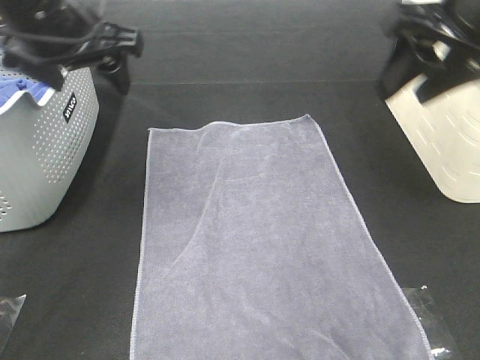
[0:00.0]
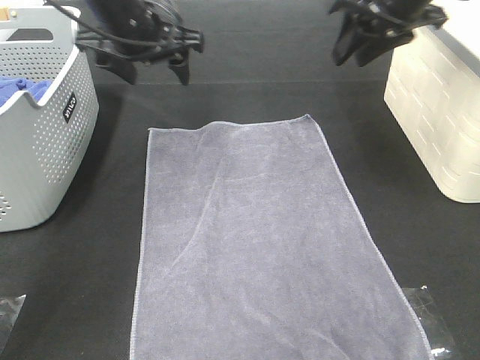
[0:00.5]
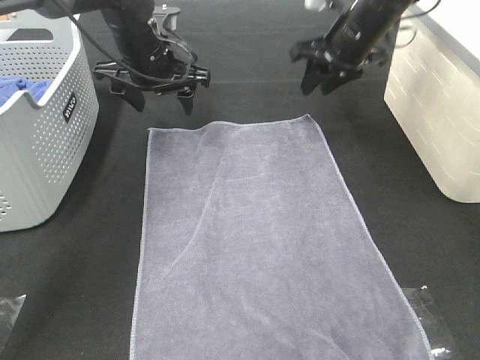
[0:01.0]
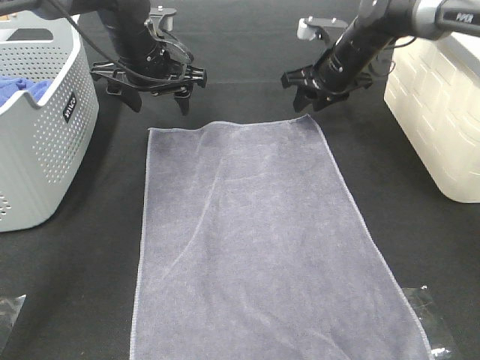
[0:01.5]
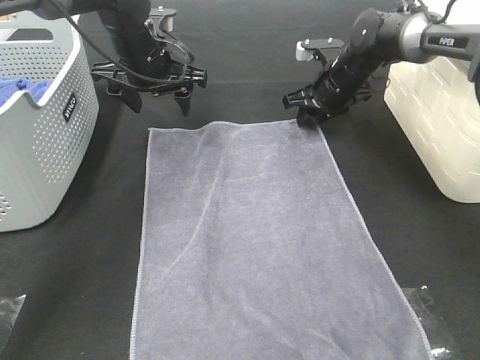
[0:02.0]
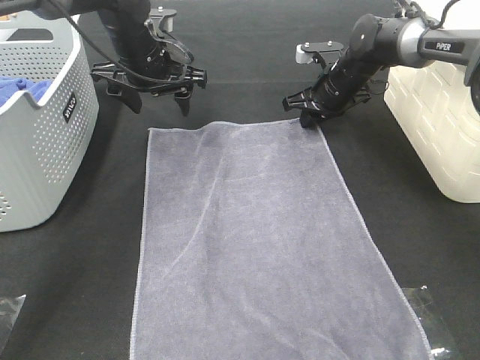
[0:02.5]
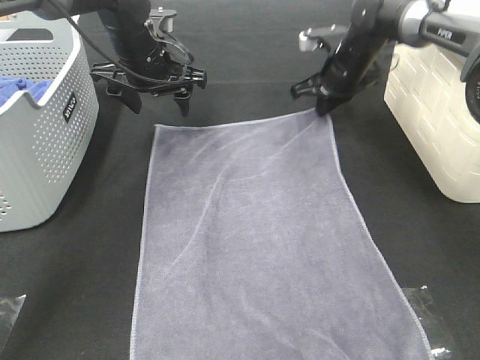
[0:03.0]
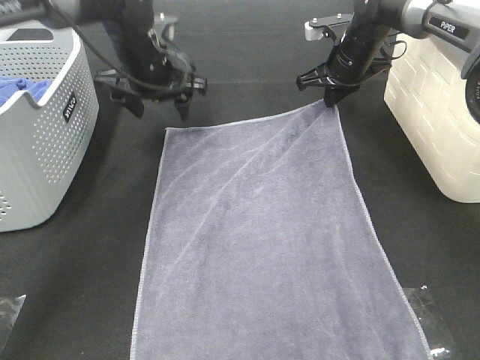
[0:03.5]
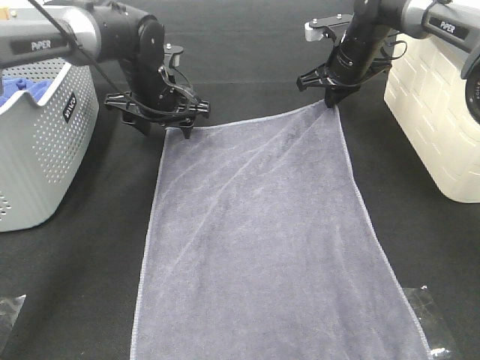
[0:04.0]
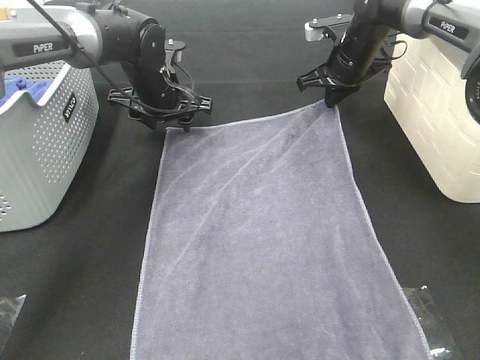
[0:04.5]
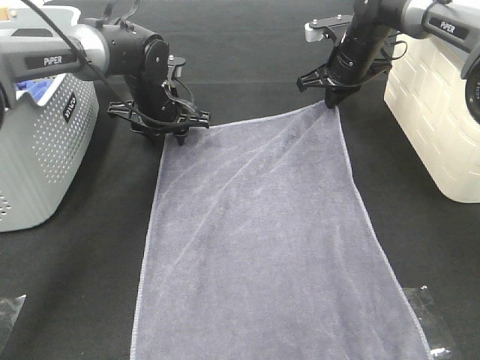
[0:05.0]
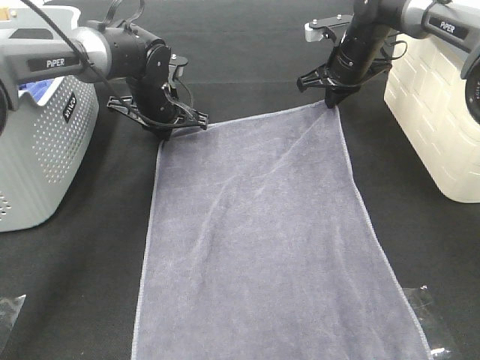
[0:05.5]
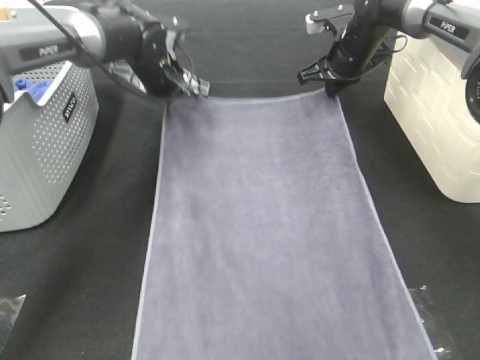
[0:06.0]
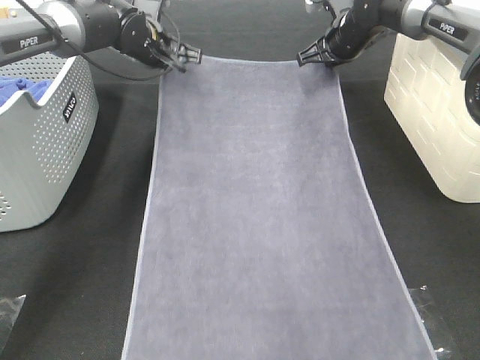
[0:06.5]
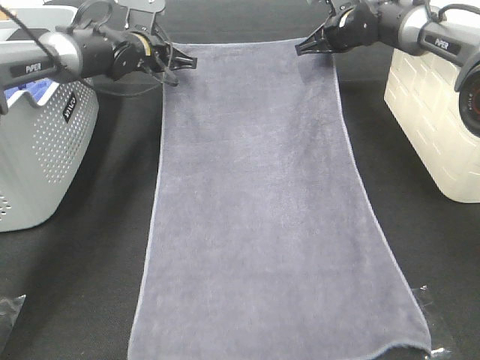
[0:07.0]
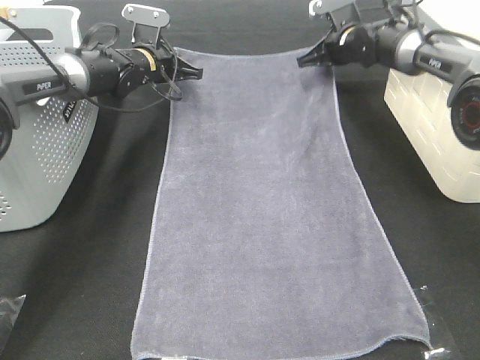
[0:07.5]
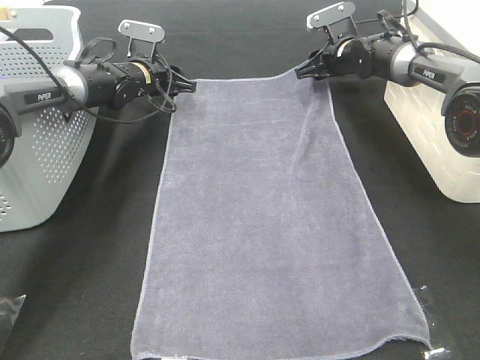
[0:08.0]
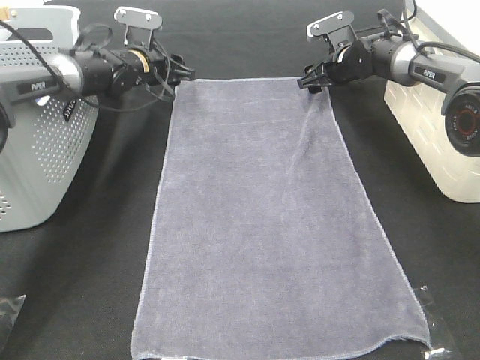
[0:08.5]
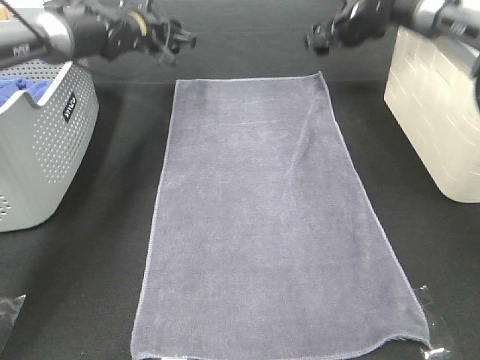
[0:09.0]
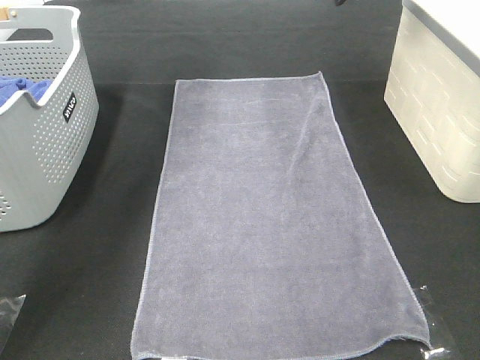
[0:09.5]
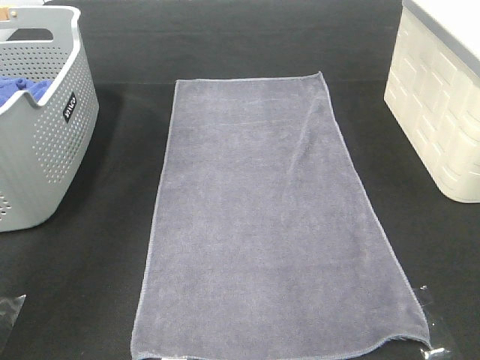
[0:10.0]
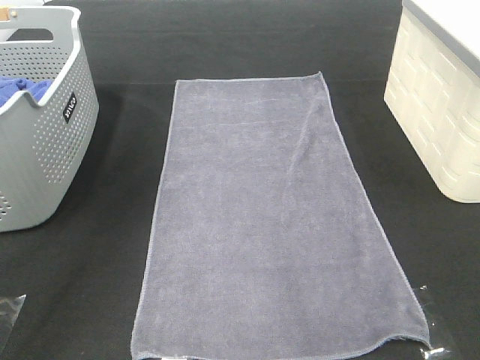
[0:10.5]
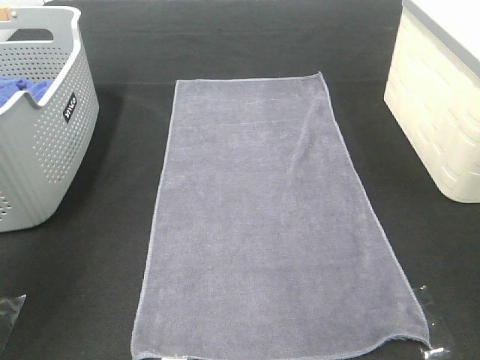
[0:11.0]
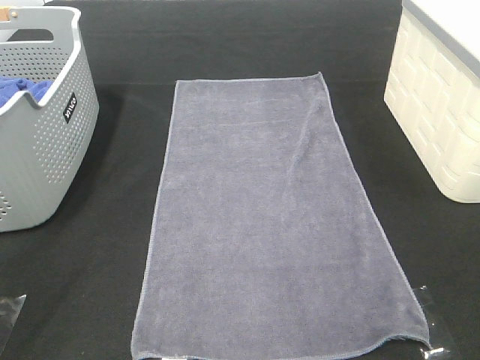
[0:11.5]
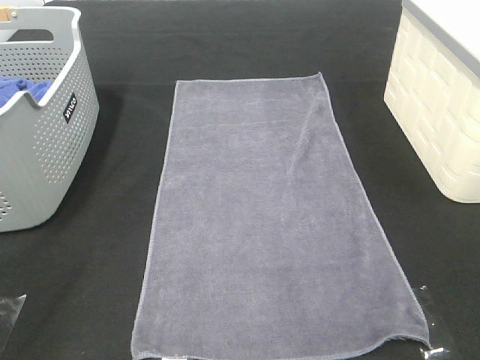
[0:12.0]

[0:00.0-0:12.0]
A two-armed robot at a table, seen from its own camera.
Task of the whole recording: Remove the towel and place it.
Step, 0:00.0 to 0:02.0: Left hand:adjust the gray towel.
Step, 0:00.0 to 0:02.0: Right hand:adjust the gray towel.
0:00.0 to 0:02.0: The right gripper goes some 30 cm forward and downward. Meanwhile the left gripper heads forward and downward, covering some 15 cm.
0:02.0 to 0:04.0: The right gripper closes up. The left gripper is displaced downward by about 5 cm.
0:04.0 to 0:06.0: The left gripper closes up.
0:06.0 to 0:08.0: The right gripper shifts by some 5 cm, and opens its fingers. The left gripper moves downward, roughly 5 cm, and opens up.
0:08.0 to 0:10.0: The grippers both shift upward and backward by roughly 35 cm.
0:10.0 to 0:12.0: The grippers both shift backward by some 40 cm.

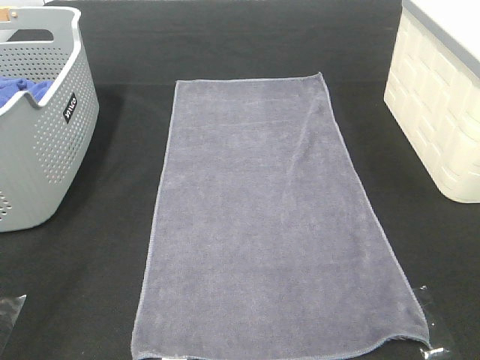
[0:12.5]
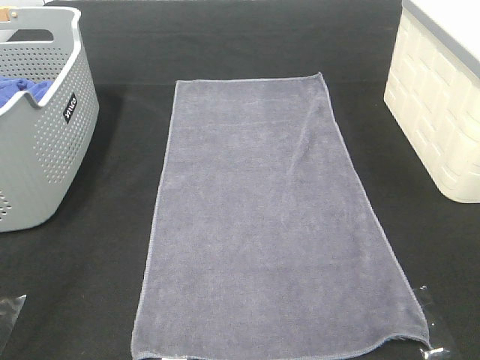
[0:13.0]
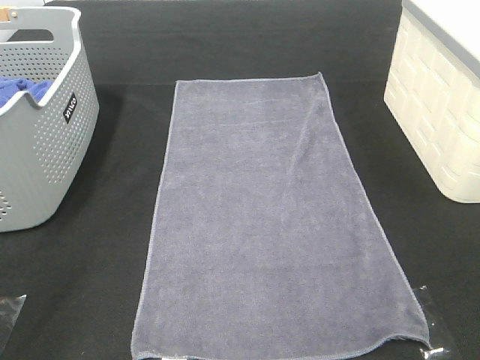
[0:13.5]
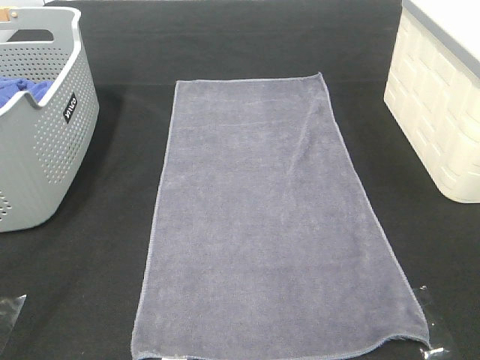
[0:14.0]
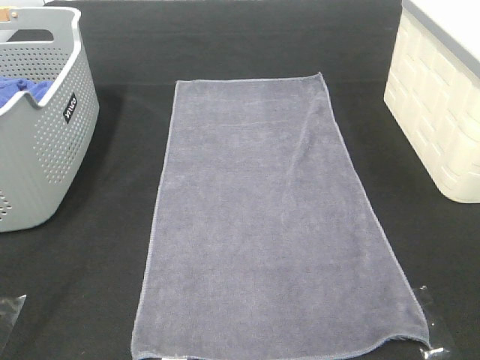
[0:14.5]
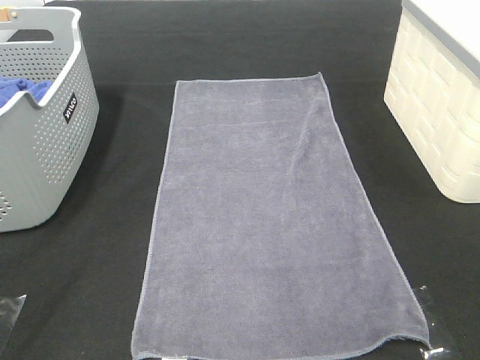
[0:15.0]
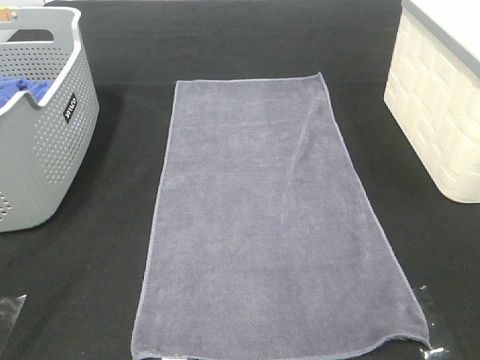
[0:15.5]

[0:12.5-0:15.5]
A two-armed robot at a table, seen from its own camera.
Task of the whole recording: Remove the towel and place it.
0:14.0 to 0:15.5: Both grippers stay put.

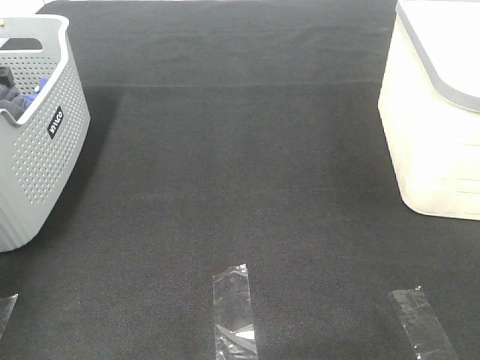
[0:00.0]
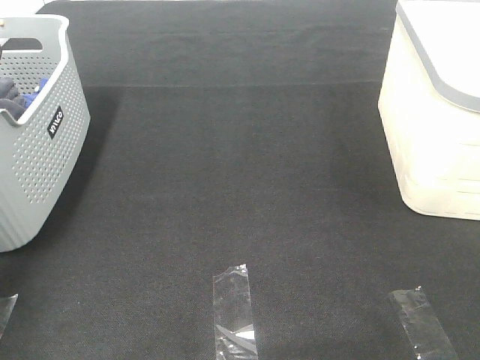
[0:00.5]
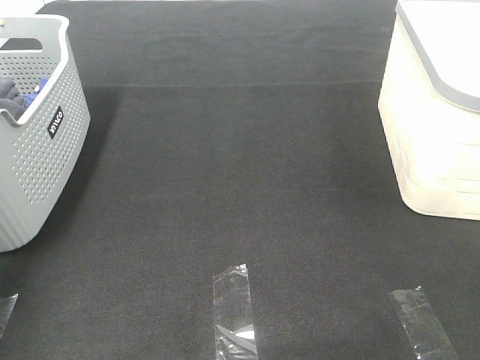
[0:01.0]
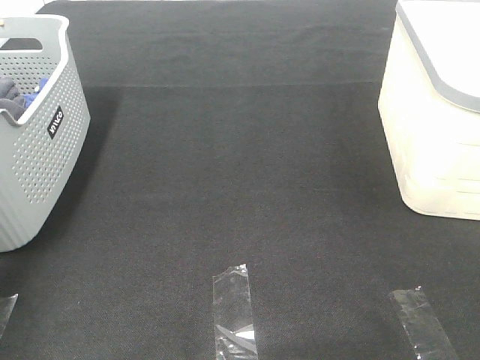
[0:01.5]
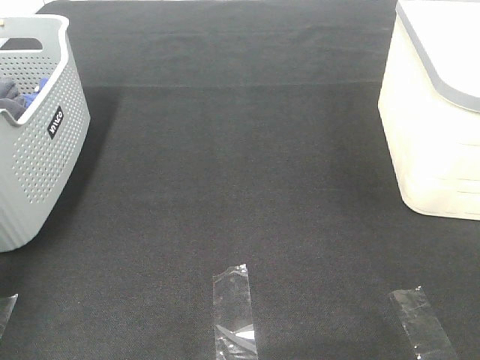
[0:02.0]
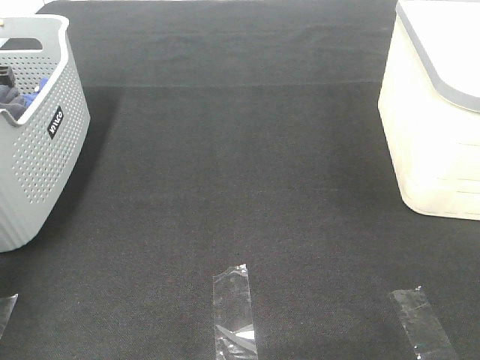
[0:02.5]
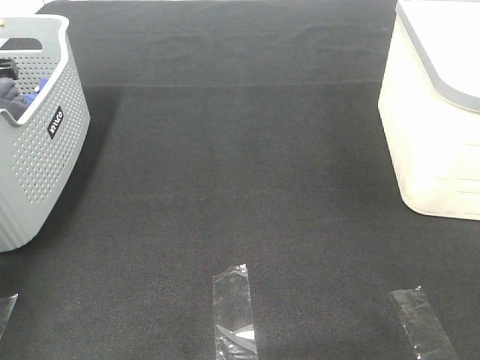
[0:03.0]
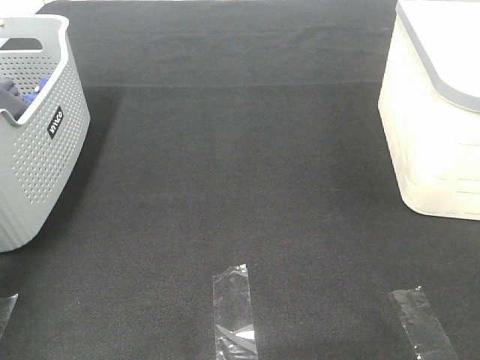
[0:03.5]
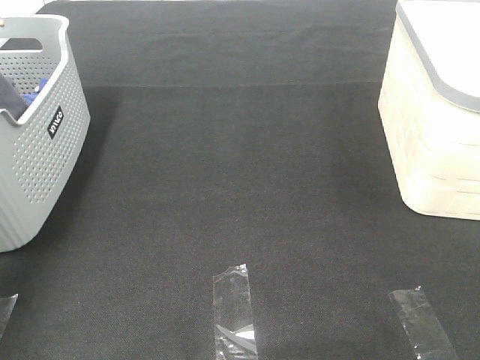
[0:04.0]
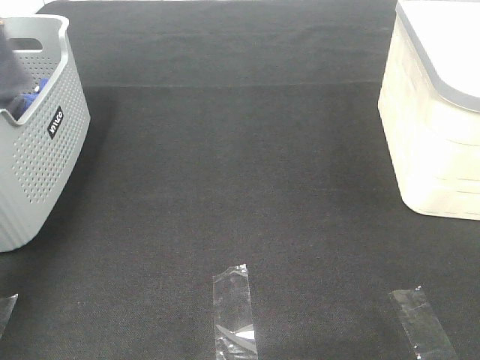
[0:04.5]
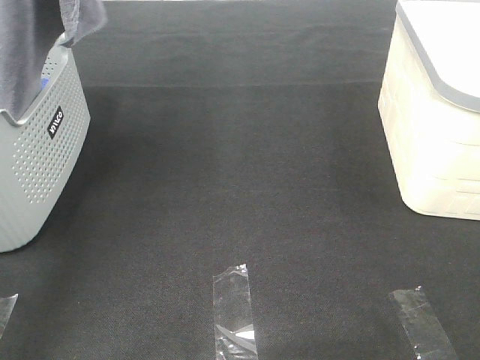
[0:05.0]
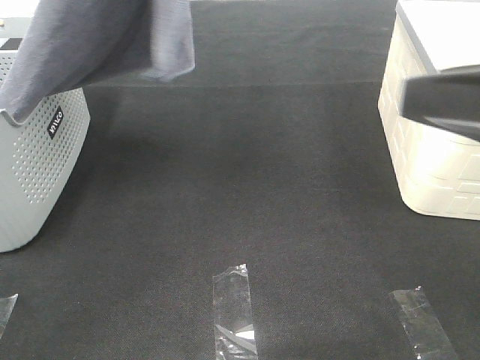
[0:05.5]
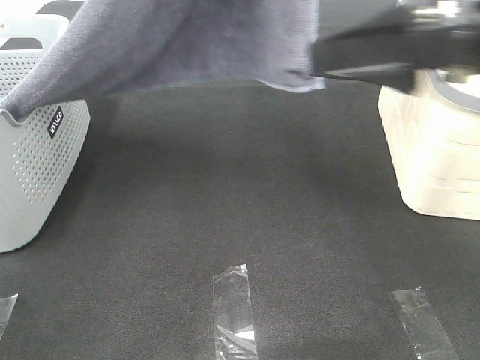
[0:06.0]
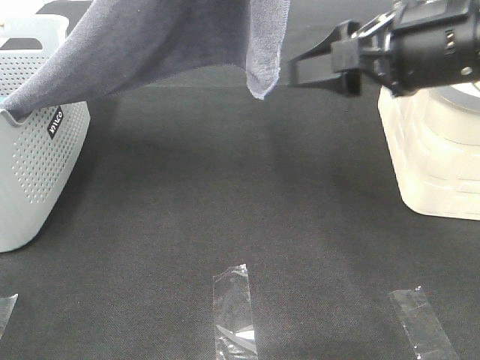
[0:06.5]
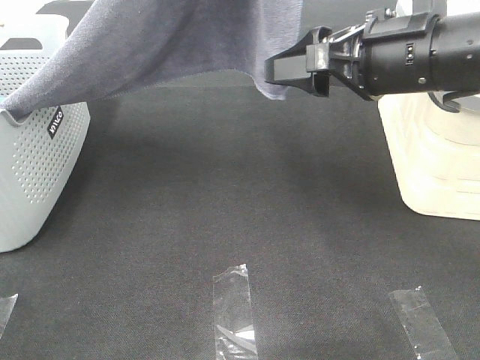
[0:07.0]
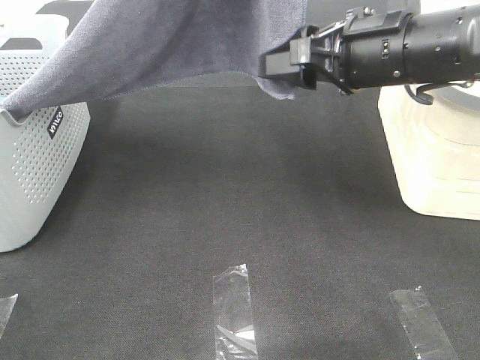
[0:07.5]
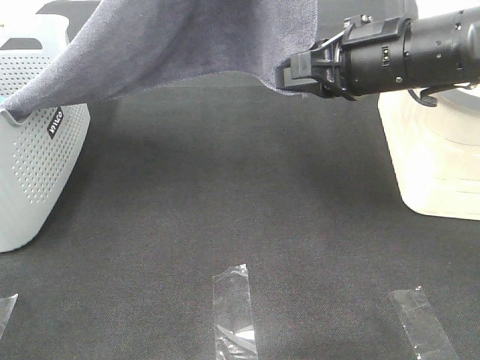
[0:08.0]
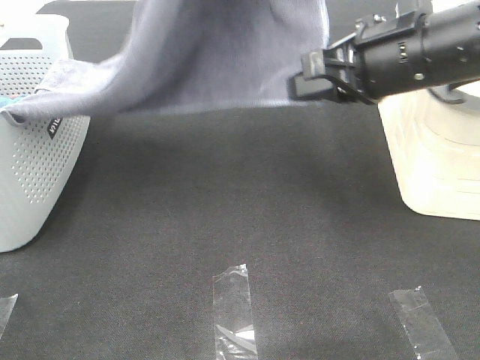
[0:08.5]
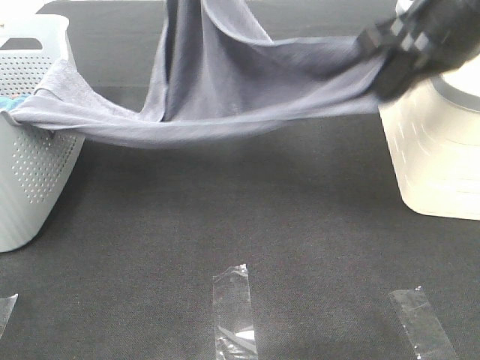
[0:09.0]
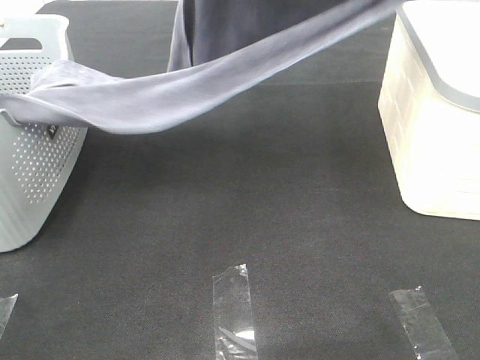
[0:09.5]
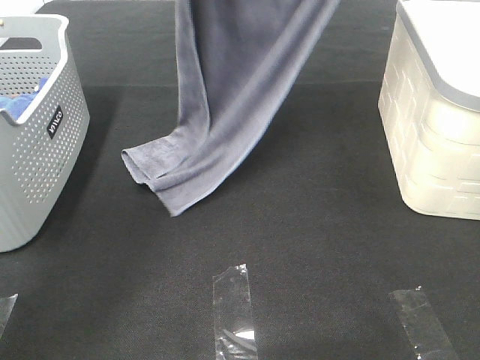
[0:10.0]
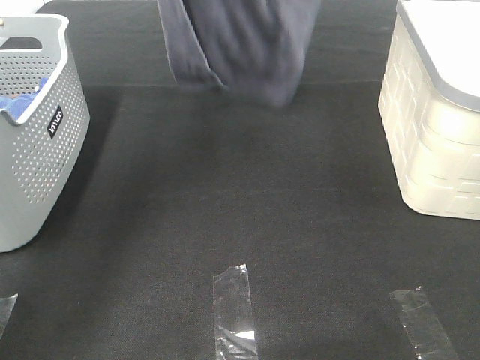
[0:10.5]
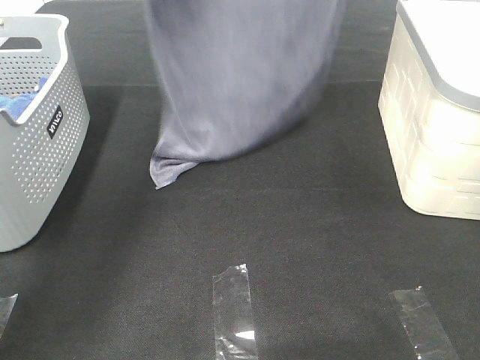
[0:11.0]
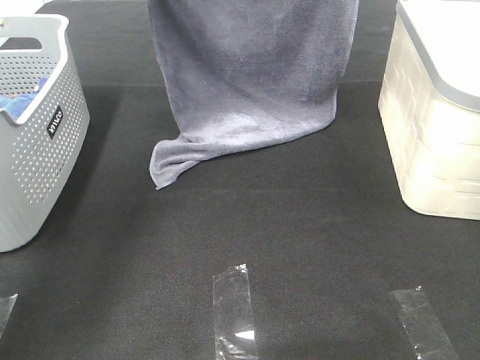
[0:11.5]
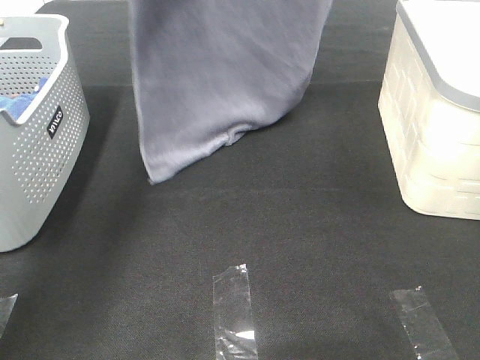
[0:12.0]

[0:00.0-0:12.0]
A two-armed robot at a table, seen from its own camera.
Task of the whole recording: Remove the towel and place it.
Step, 0:02.5 to 0:06.0: Right hand: grab a corner of the grey towel and straighten it.
Step, 0:06.5 to 0:11.0: Left hand: spread the grey towel flat on the table.
Step, 0:06.5 to 0:11.0: Right hand: spread the grey towel flat on the table.
0:04.0 to 0:06.0: The right gripper shifts some 25 cm forward and to the left; the left gripper is displaced to the right by approximately 25 cm.
0:06.0 to 0:08.0: The right gripper shifts approximately 10 cm forward and downward, and closes up.
0:08.0 to 0:10.0: The right gripper travels upward and forward by approximately 25 cm; the left gripper goes some 20 cm forward and downward.
0:10.0 to 0:12.0: The right gripper goes upward and returns, some 10 cm each way, while the left gripper swings up and down, some 10 cm each way, with 2 reversals.
